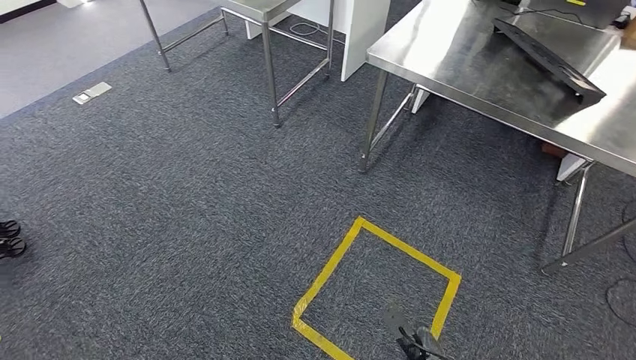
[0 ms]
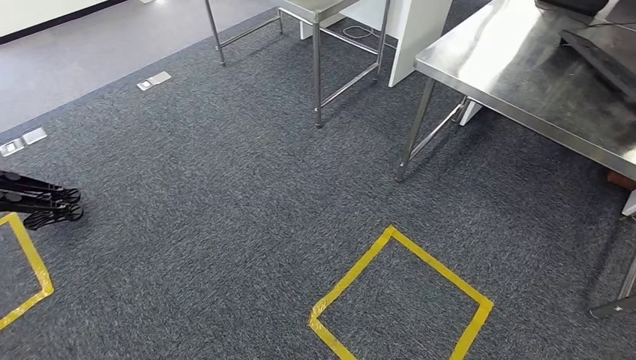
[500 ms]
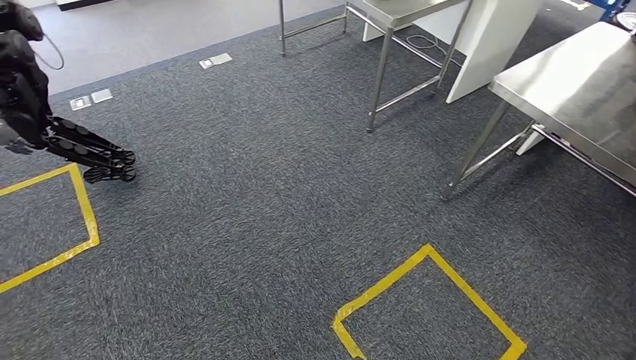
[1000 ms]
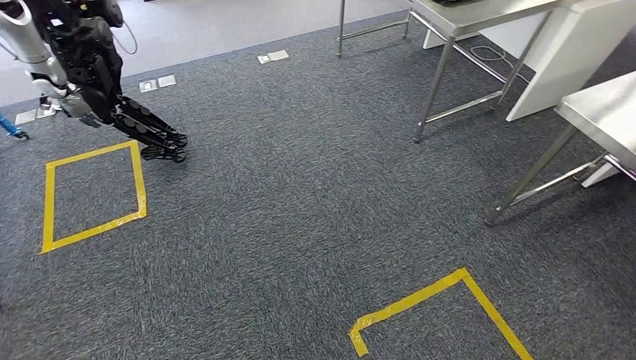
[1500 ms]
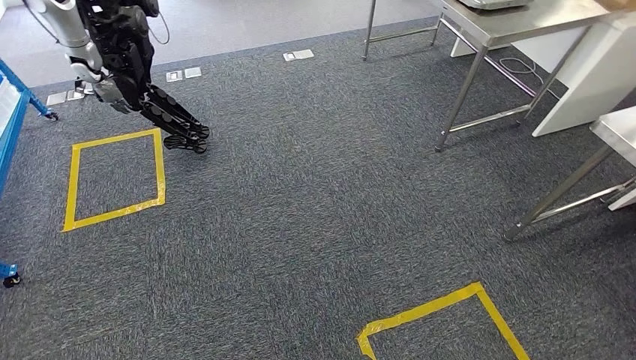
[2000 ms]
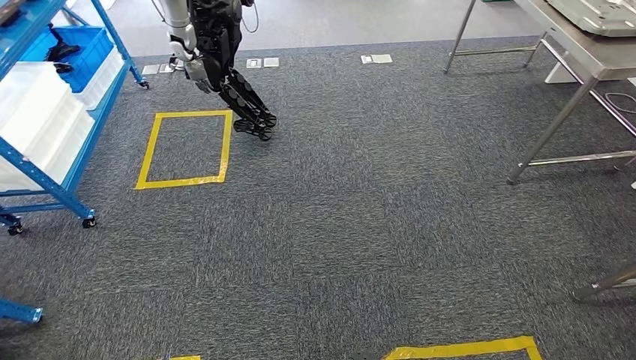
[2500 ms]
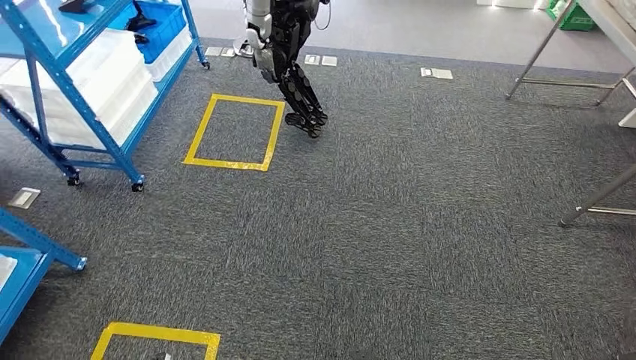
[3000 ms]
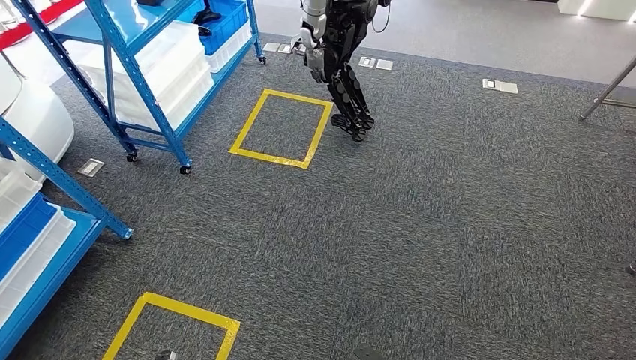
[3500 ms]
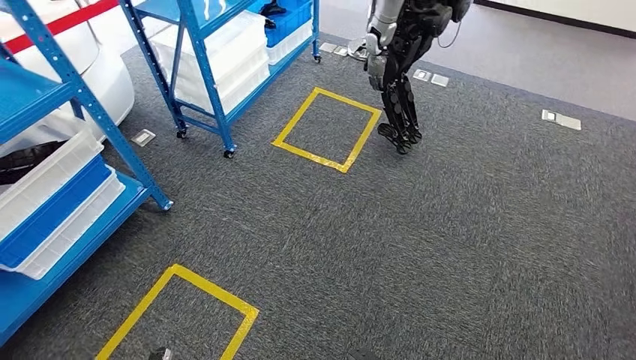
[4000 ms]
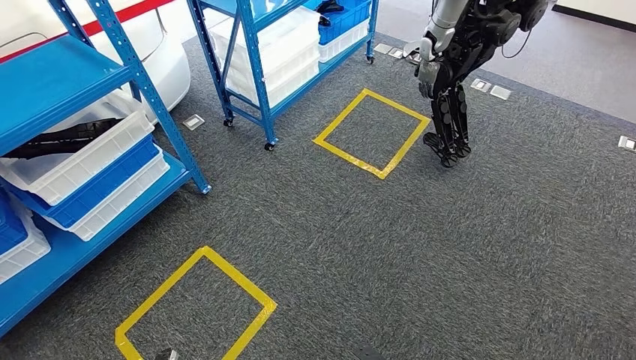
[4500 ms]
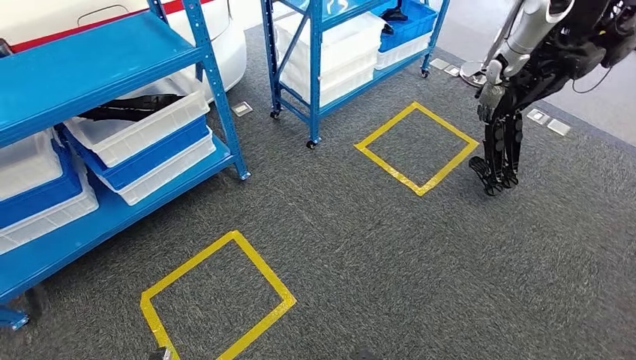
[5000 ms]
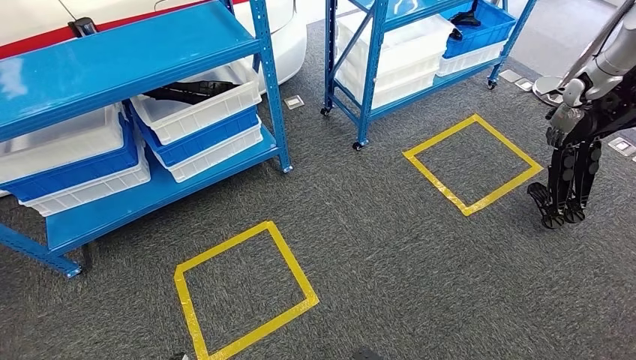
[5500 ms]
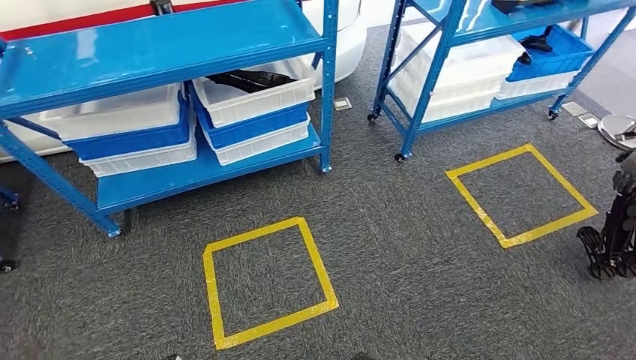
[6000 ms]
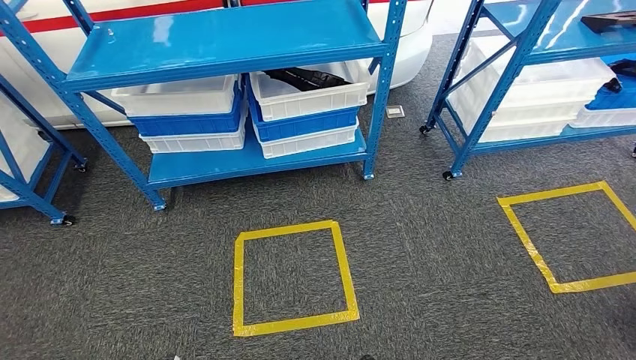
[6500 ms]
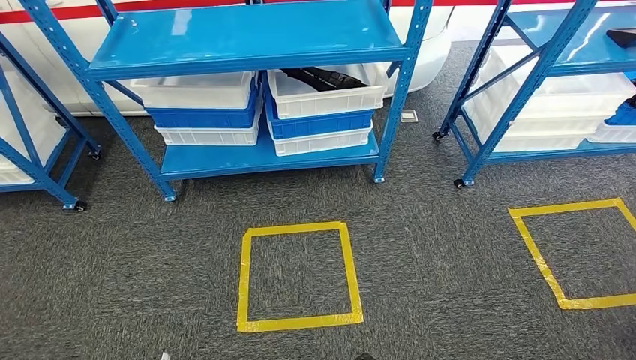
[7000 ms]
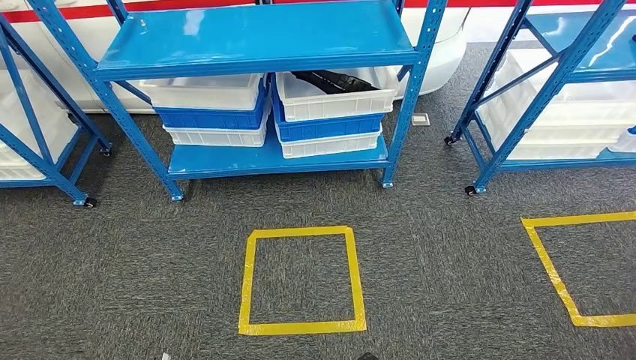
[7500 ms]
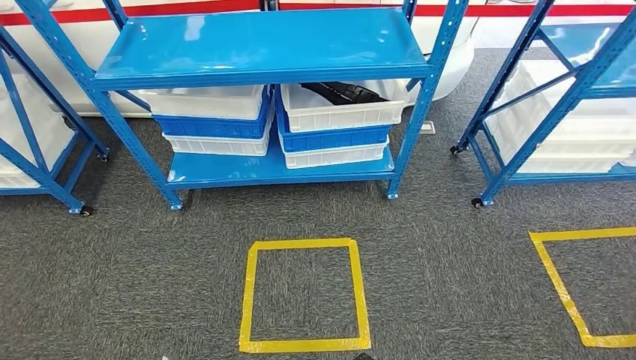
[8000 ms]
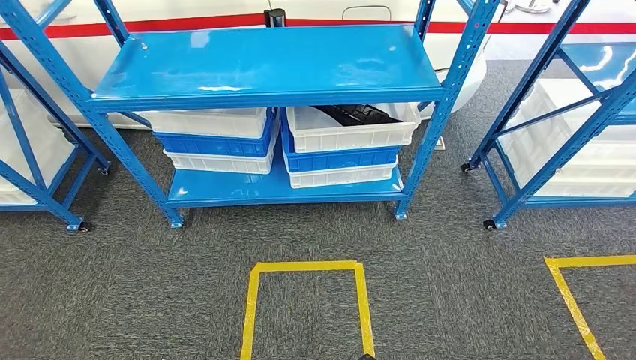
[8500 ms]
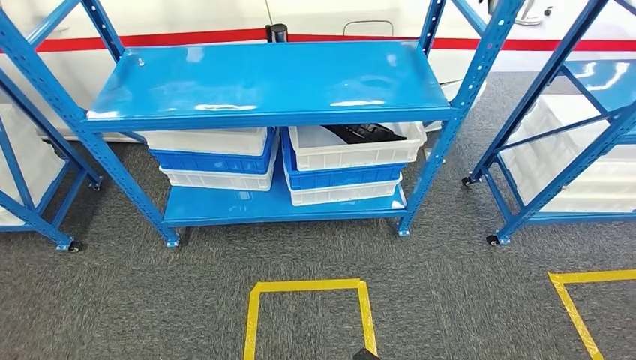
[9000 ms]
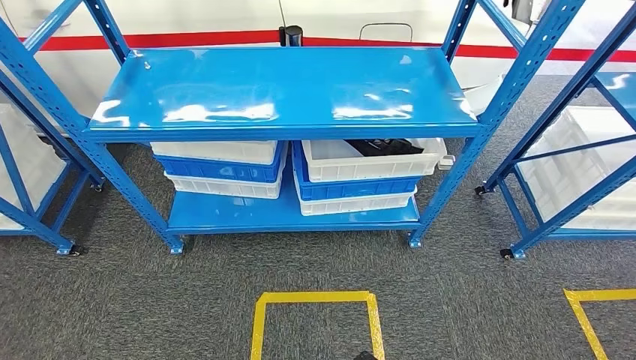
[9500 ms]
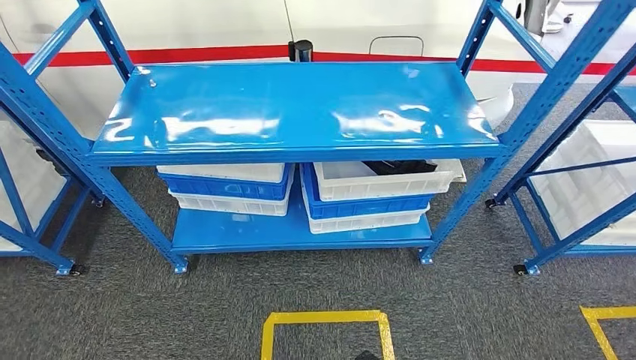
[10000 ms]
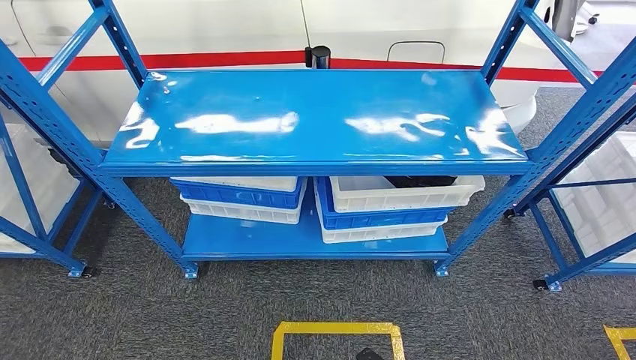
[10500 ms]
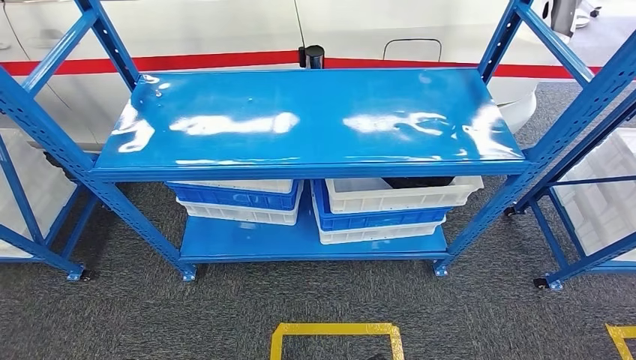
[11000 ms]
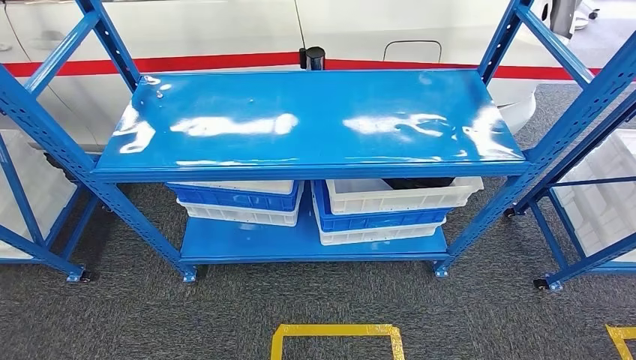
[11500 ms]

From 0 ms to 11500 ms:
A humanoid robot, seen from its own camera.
Step, from 0 ms to 11500 ms: Move to the initial position of the shelf.
